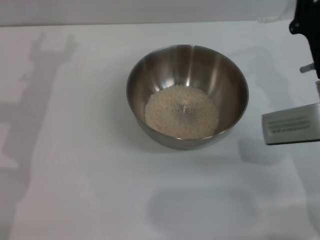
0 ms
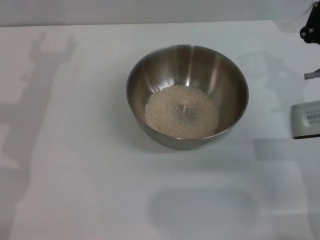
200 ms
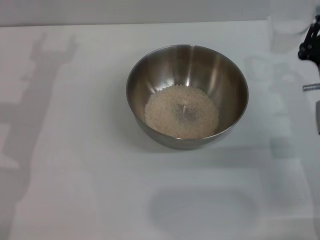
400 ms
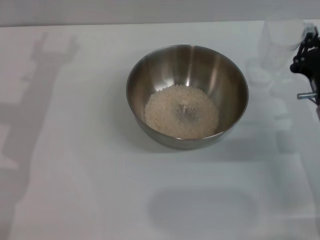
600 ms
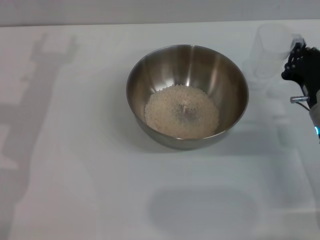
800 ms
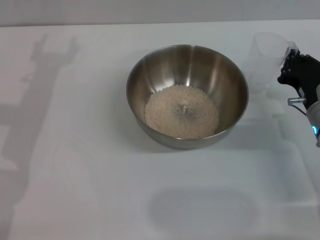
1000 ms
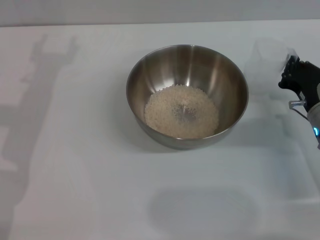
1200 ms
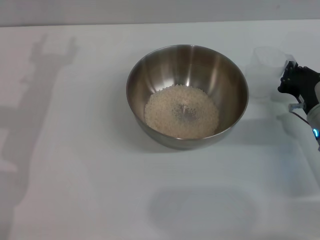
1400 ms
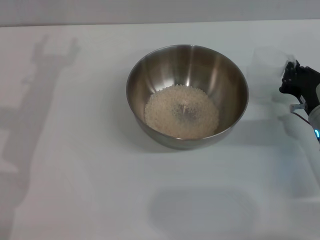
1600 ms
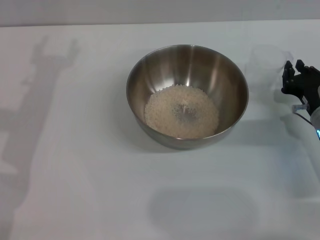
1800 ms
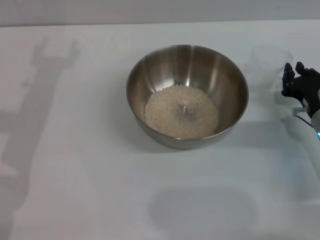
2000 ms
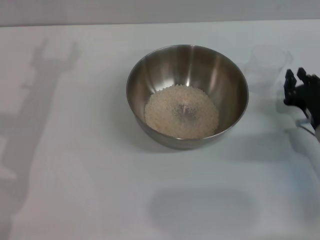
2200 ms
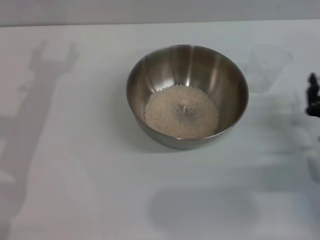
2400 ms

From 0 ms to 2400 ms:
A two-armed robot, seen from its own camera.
Task of the whole recording: Place the bowl in the middle of the table with one hand and pour the rice from the grain cup into it with the other hand.
Step, from 0 ms to 2000 ms: Place the cup on the table with the right gripper.
From 0 ms to 1200 ms: The right gripper heads downward, covering approximately 10 cm.
From 1200 ms to 2400 ms: The right gripper shifts roughly 5 cm backward.

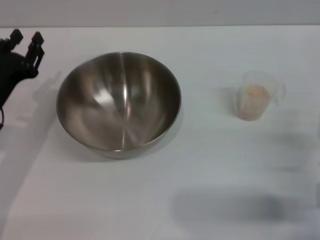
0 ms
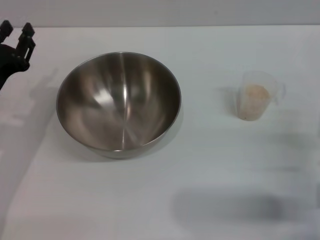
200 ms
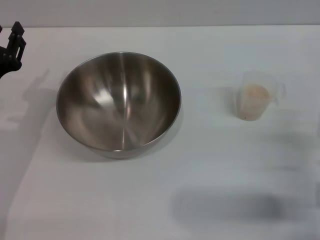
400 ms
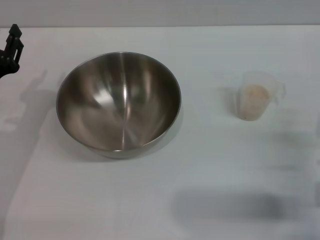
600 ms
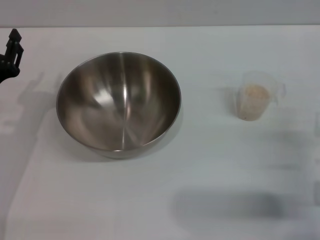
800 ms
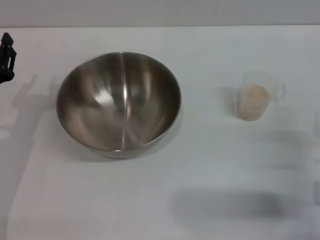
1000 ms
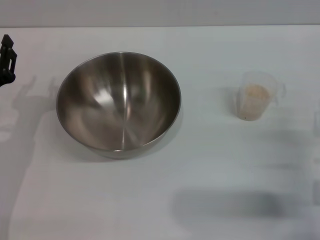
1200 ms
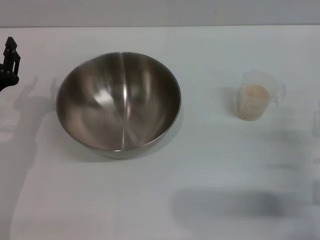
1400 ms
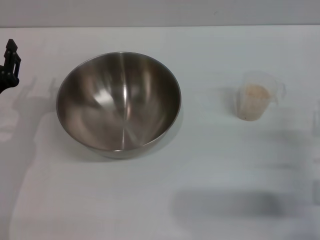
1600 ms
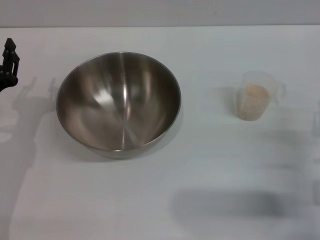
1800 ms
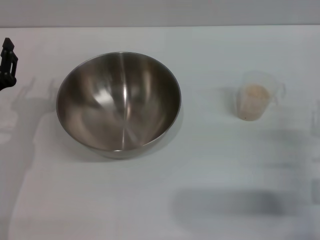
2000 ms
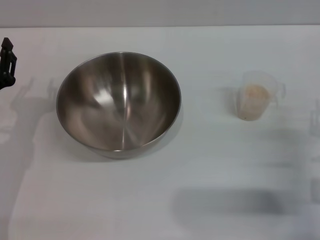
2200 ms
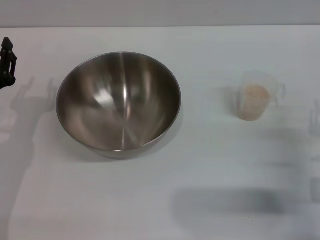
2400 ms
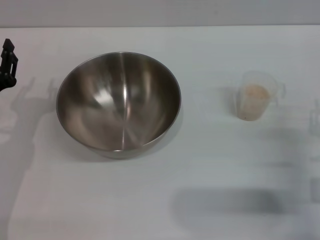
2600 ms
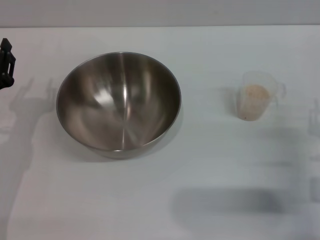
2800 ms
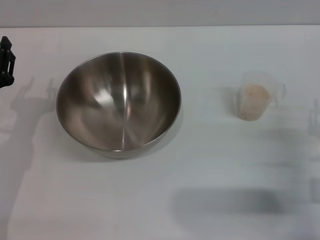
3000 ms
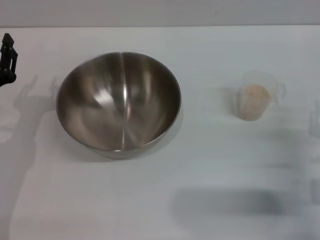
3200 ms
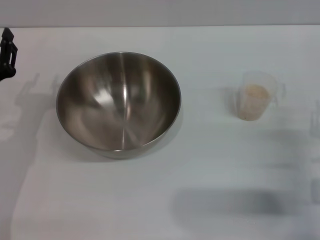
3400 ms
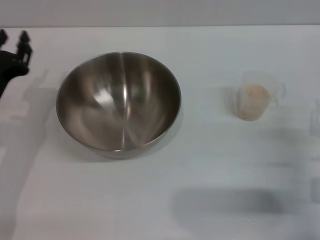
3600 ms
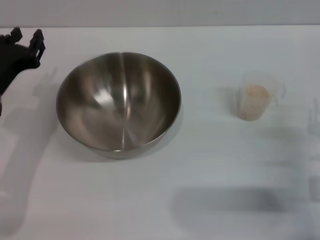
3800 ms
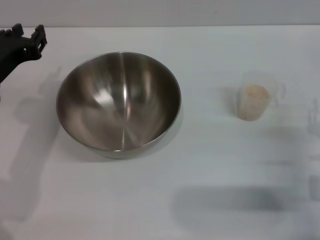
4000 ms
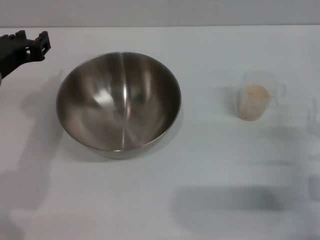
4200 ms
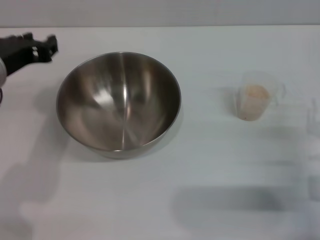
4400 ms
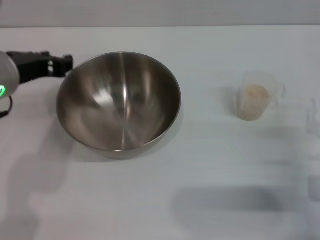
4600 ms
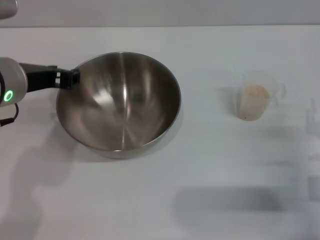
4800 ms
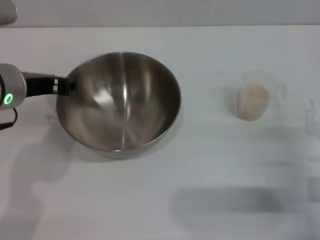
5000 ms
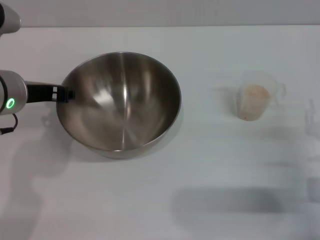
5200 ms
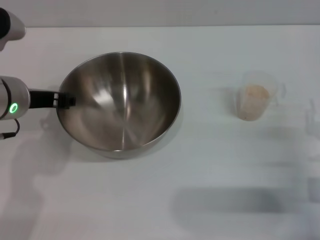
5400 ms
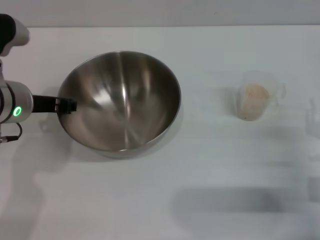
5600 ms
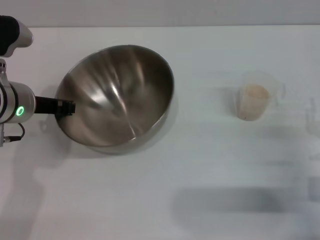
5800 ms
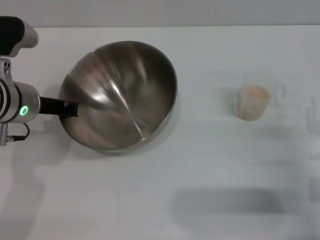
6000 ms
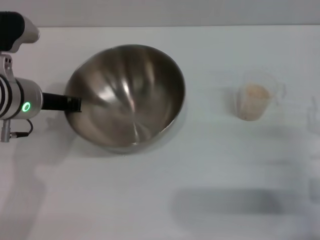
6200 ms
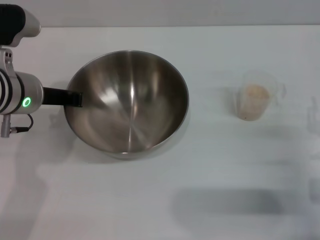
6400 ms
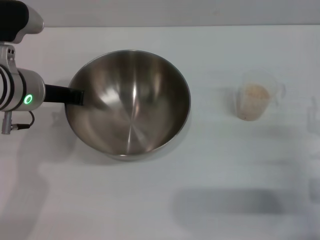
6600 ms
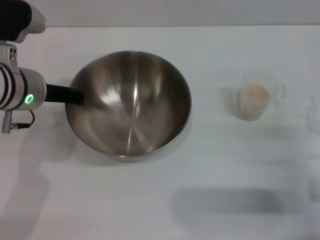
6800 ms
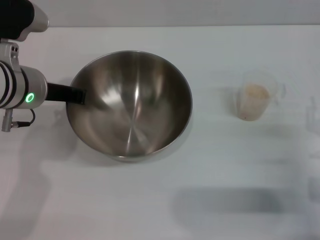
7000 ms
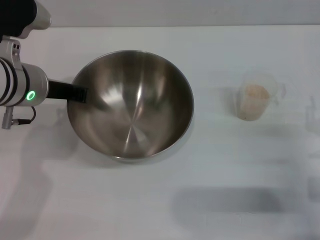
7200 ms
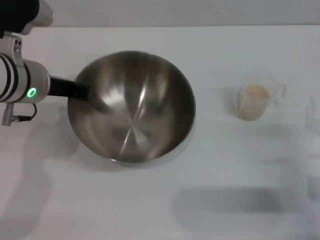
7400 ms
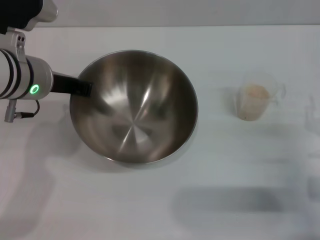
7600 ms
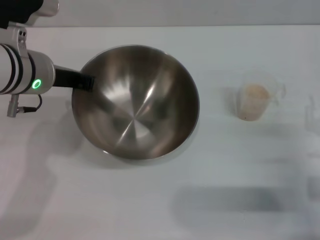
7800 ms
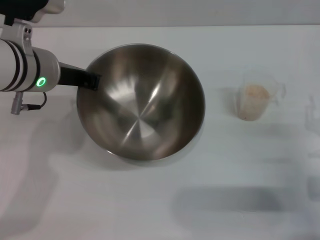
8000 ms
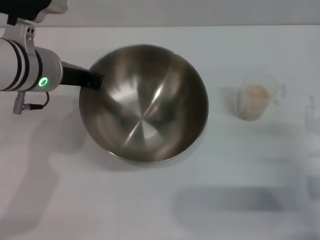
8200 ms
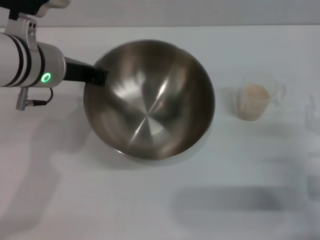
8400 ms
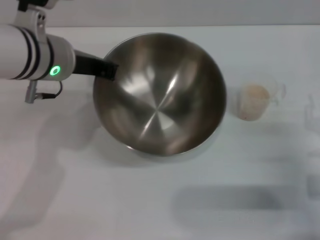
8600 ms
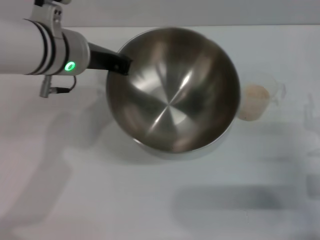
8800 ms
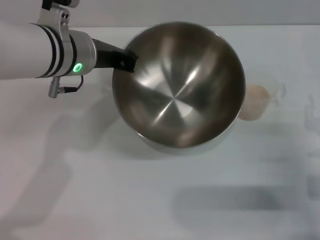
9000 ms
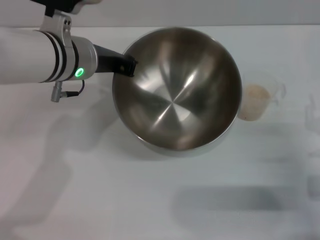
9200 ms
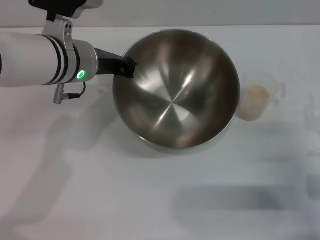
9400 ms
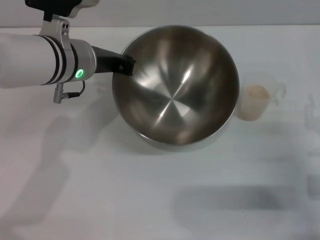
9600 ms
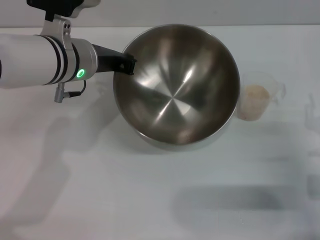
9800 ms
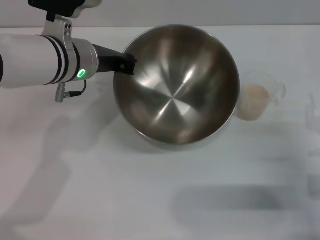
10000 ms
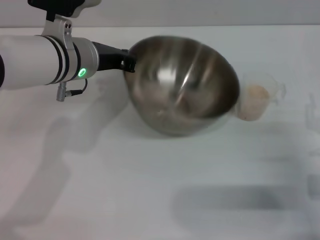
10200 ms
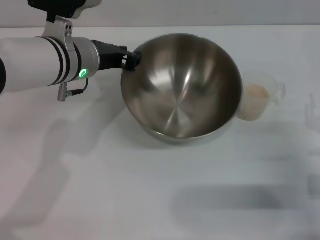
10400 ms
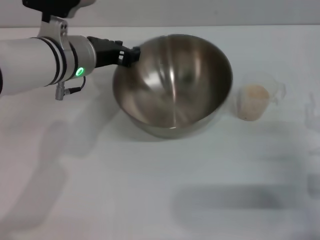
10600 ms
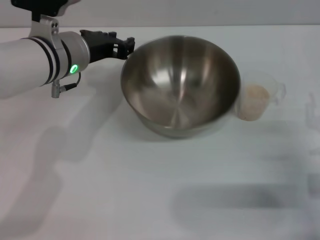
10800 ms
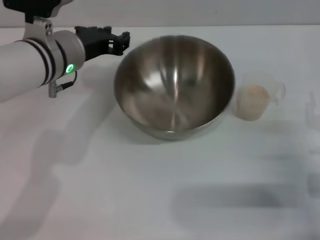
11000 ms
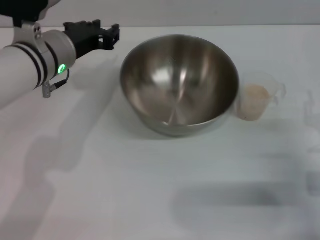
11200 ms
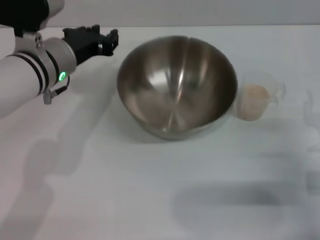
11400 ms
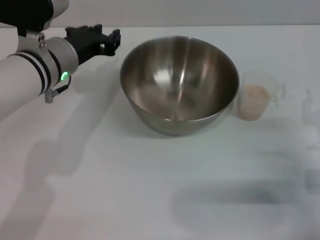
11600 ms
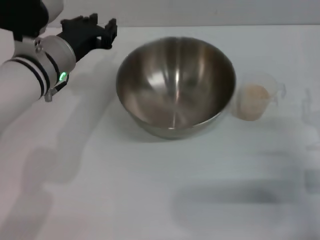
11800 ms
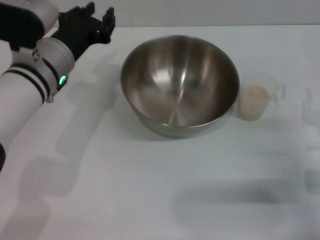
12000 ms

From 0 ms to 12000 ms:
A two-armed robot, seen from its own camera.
Task of the whole recording: Place the bowl in the middle of the table with one hand and pour the rice from the grain cup into it with the other hand.
Step, from 0 ms to 8400 ms: Pick up the bowl with the left gripper.
Step, from 8600 ms to 11800 ms: Place the bowl in the center of view with the left gripper.
From 0 ms to 1600 ms: The grippers make only small movements.
From 1600 ms to 3000 ms: Both grippers stay put.
From 3000 ms to 4400 ms: The left gripper goes about 15 cm upward and to the right.
From 4400 ms to 6000 ms: The left gripper travels downward by approximately 5 cm, and closes up.
From 6000 ms to 7600 ms: The left gripper closes up.
From 7600 ms to 9000 ms: The left gripper shifts roughly 5 cm to the right.
From 9000 ms to 10400 ms: The left gripper opens up.
From 10400 ms to 12000 ms: The left gripper opens.

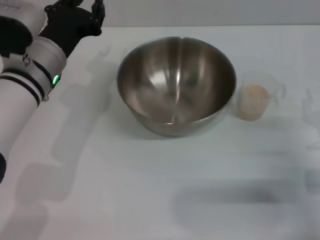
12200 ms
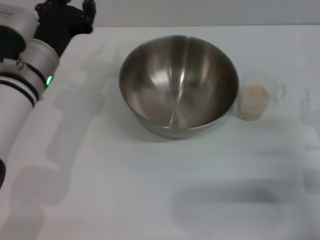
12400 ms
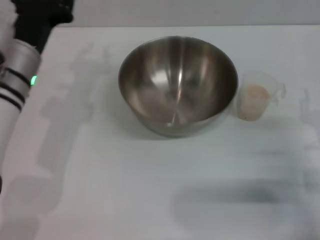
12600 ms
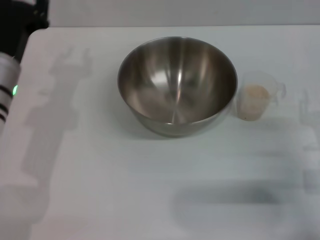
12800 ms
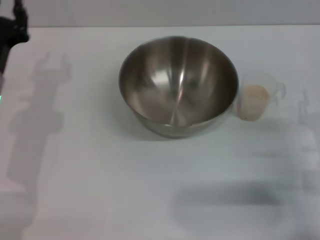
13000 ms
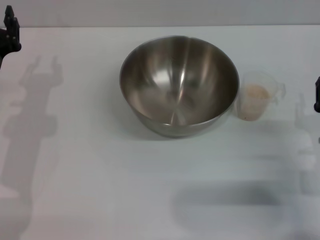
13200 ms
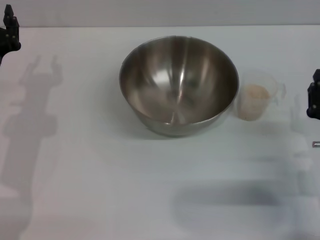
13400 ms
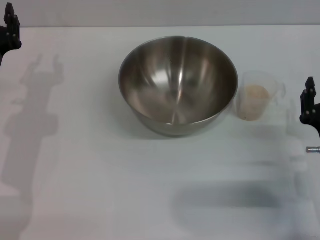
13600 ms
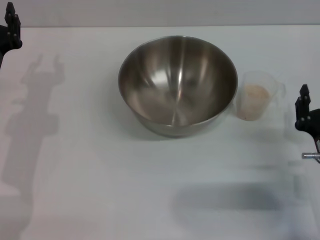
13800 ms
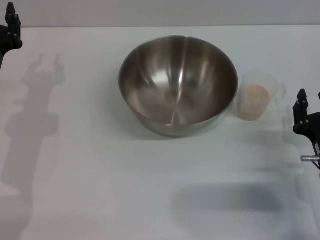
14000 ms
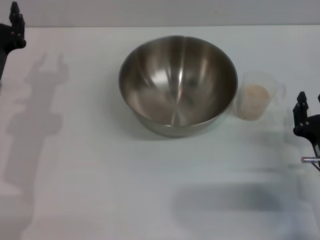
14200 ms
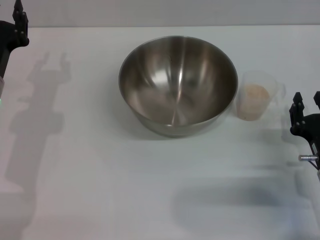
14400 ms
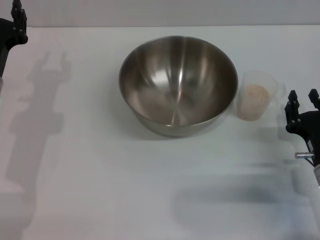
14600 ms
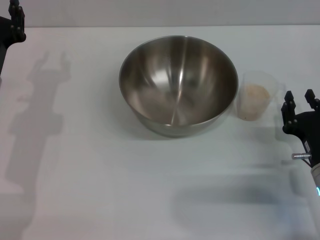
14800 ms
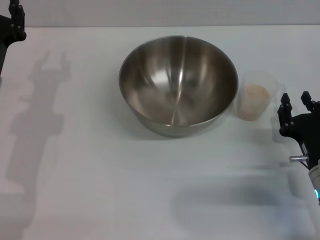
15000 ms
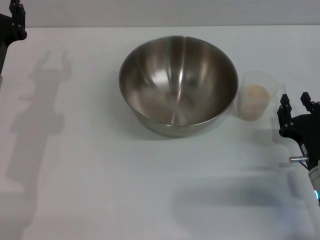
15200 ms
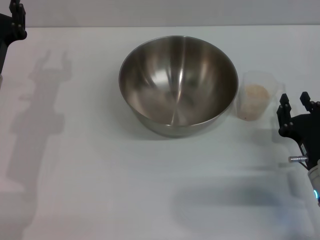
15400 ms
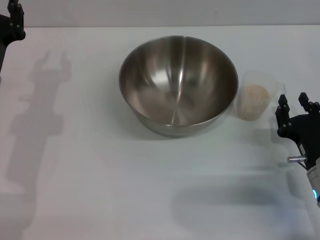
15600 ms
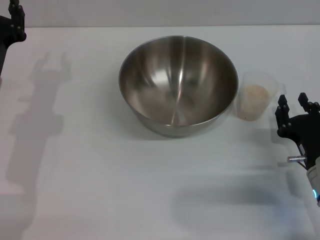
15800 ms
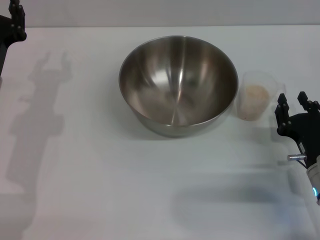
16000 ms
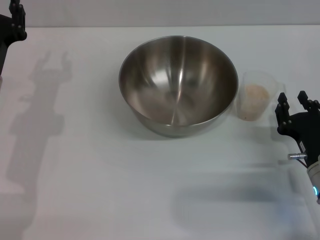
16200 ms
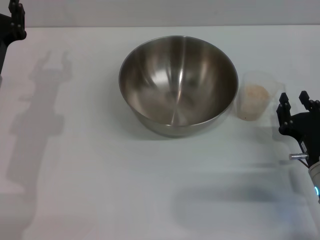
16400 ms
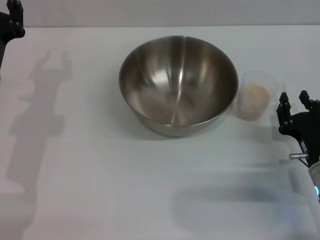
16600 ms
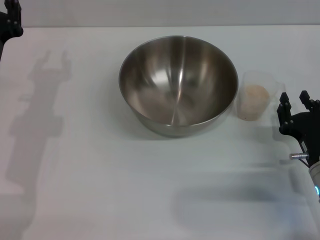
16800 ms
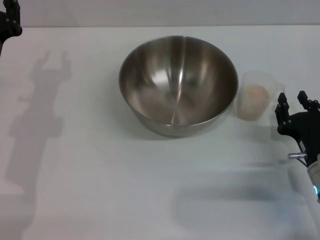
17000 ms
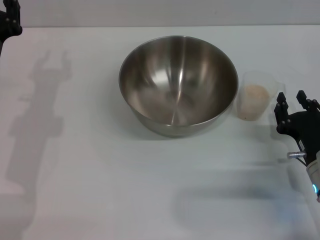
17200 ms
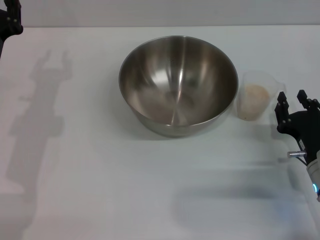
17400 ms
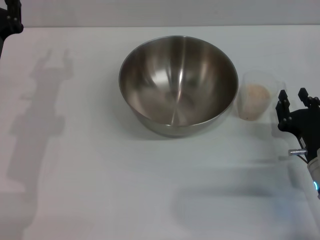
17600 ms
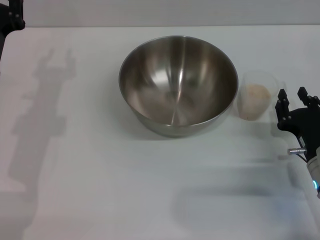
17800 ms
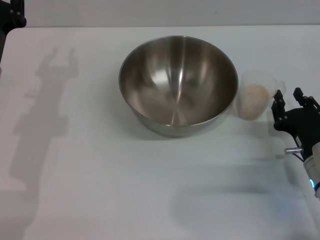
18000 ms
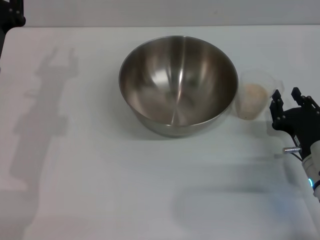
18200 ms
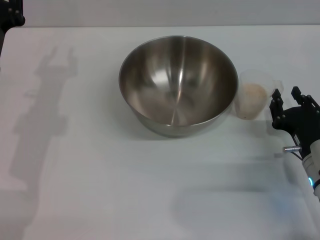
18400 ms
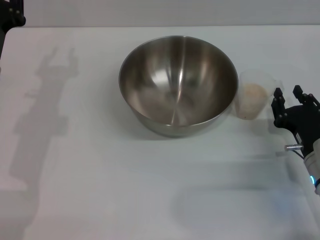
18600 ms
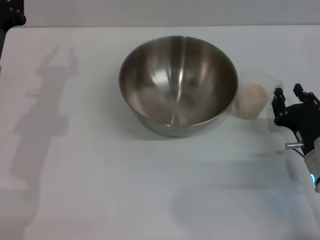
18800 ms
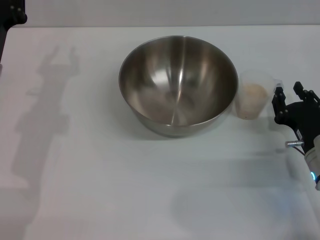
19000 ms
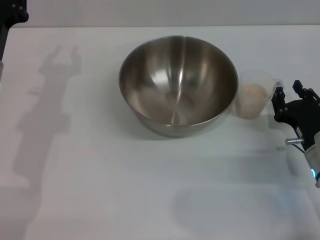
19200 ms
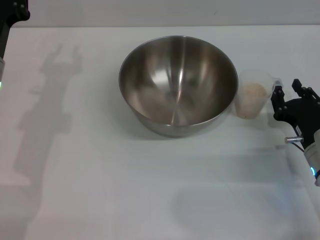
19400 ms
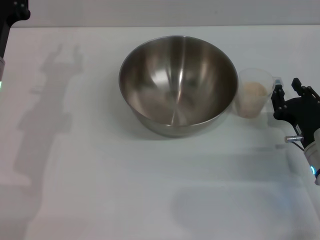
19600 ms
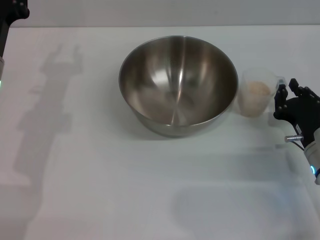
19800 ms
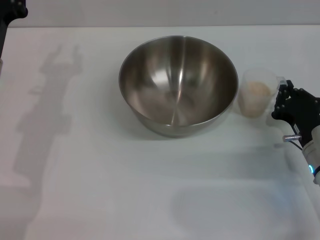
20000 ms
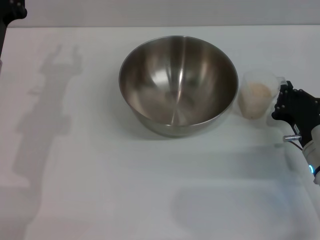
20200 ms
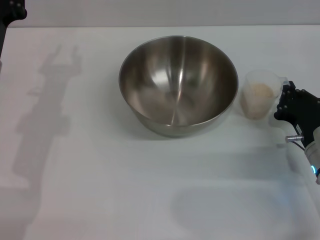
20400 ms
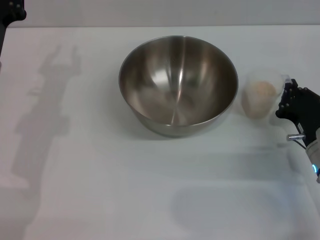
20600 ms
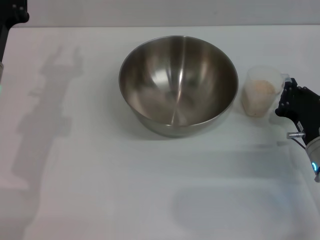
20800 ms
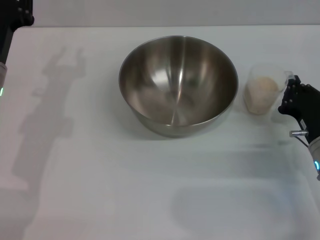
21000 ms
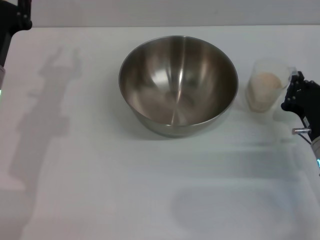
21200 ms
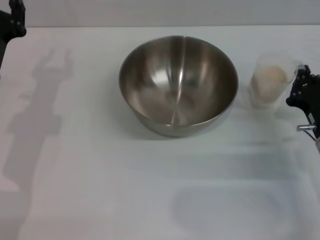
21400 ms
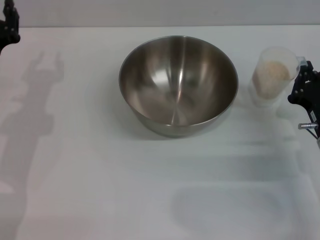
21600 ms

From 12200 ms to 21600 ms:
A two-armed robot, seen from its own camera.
Task of the whole recording: Place the bowl in the middle of the table with one hand and pour the rice from the grain cup into it with the other hand.
Step, from 12200 ms to 21400 ms: Pick up the cup with rice in it with the right gripper.
From 12200 ms to 13800 ms: The left gripper moves to the left, approximately 10 cm.
From 13800 ms to 15400 ms: The grippers stay close to where they were, moving slightly.
From 15400 ms to 17000 ms: Both grippers stay put.
From 17000 ms to 18400 ms: The two grippers keep their place.
From 18400 ms to 20000 ms: The right gripper closes.
From 20000 ms to 21600 ms: The right gripper closes its fingers.
